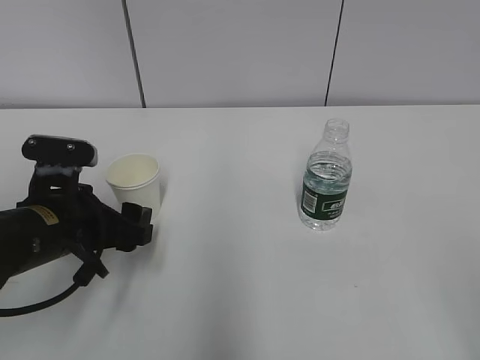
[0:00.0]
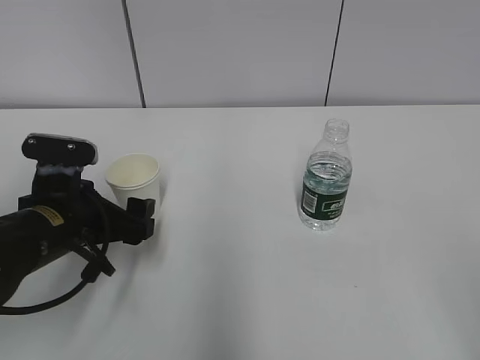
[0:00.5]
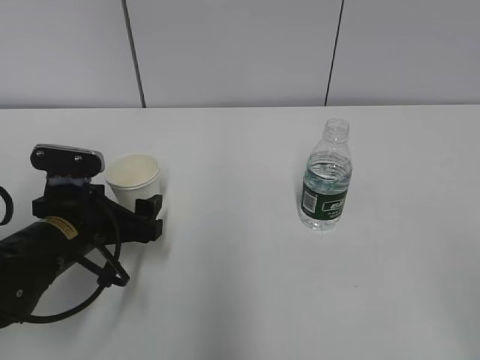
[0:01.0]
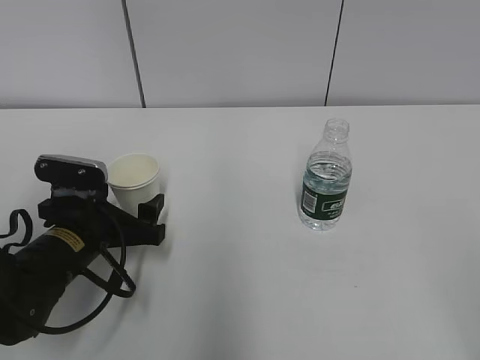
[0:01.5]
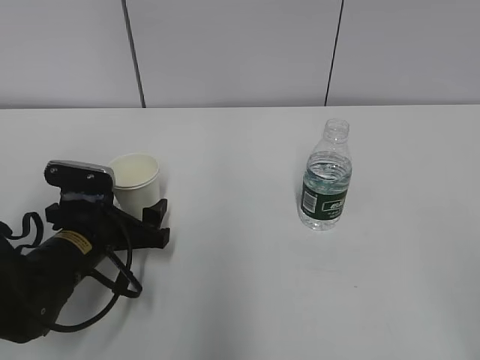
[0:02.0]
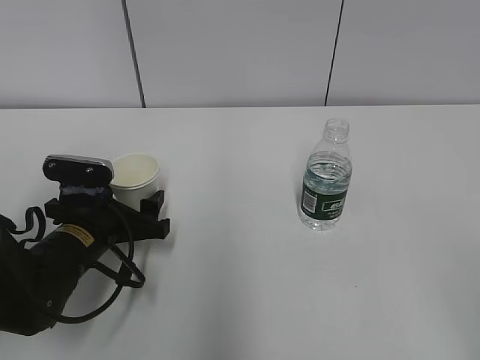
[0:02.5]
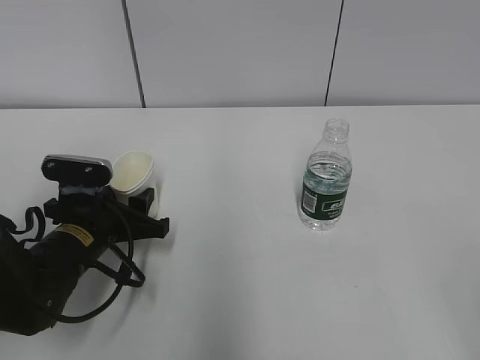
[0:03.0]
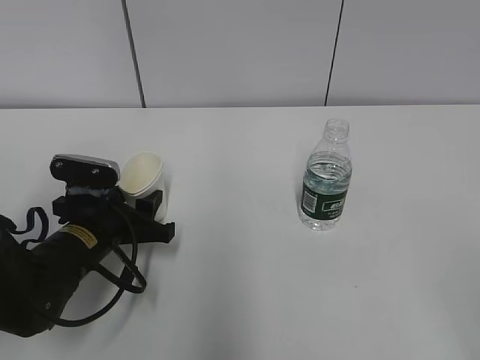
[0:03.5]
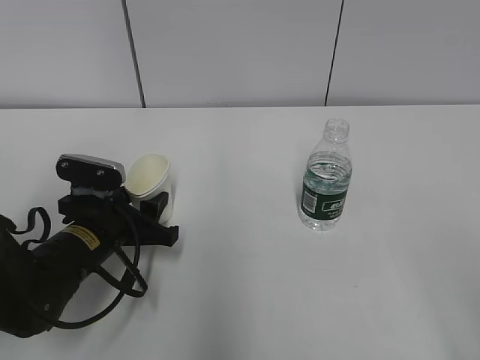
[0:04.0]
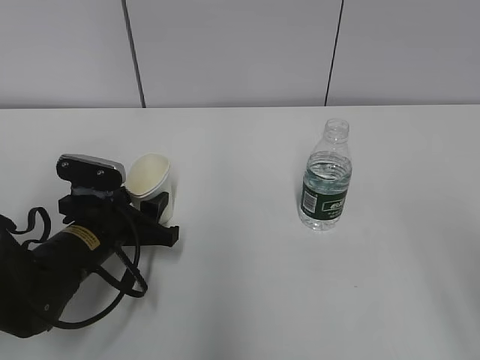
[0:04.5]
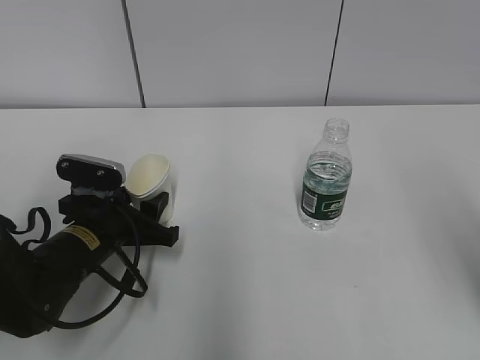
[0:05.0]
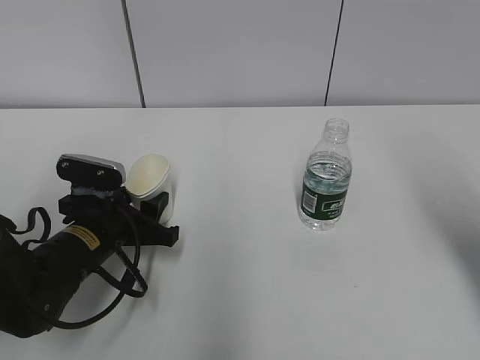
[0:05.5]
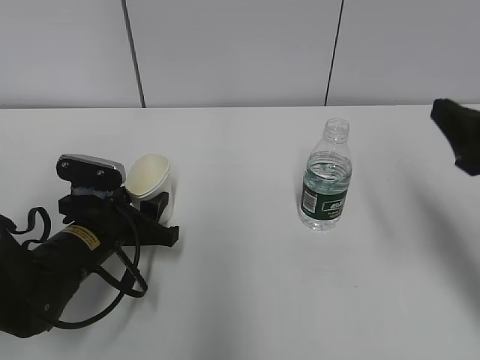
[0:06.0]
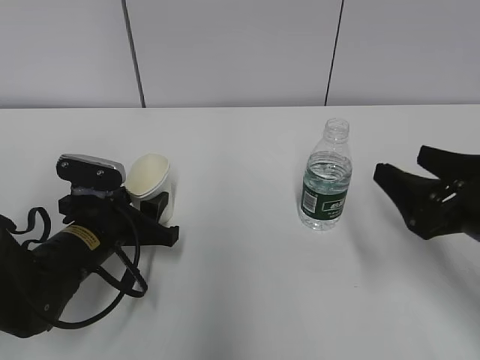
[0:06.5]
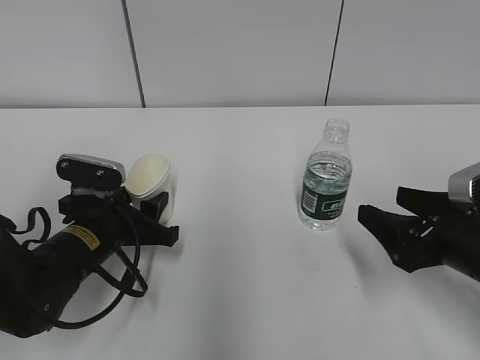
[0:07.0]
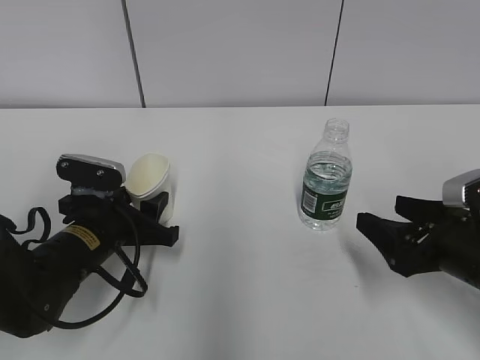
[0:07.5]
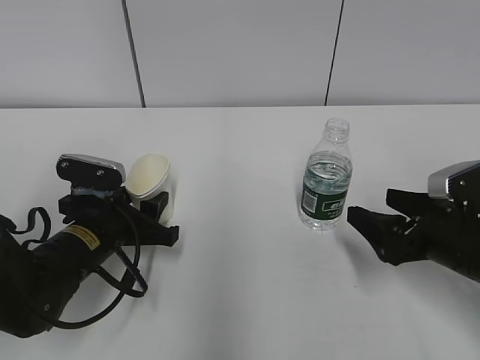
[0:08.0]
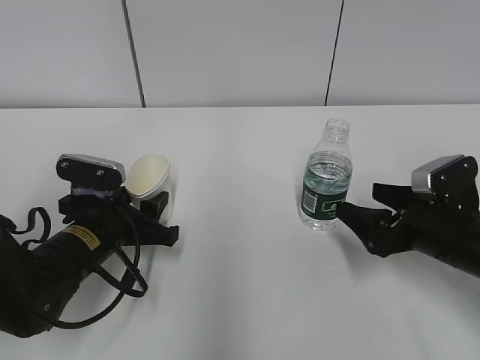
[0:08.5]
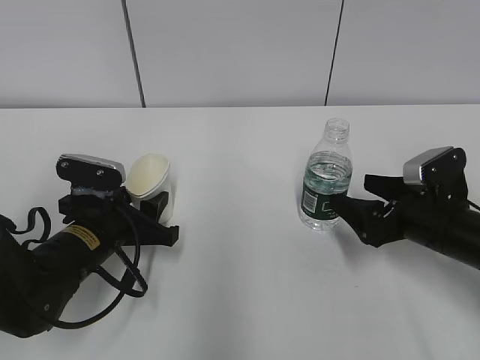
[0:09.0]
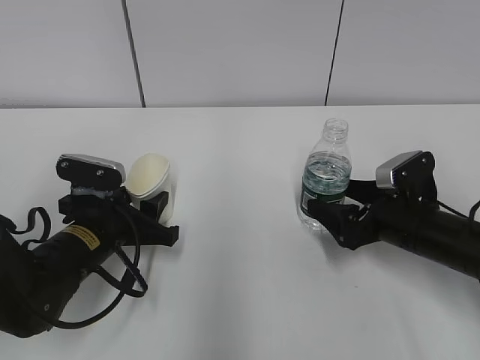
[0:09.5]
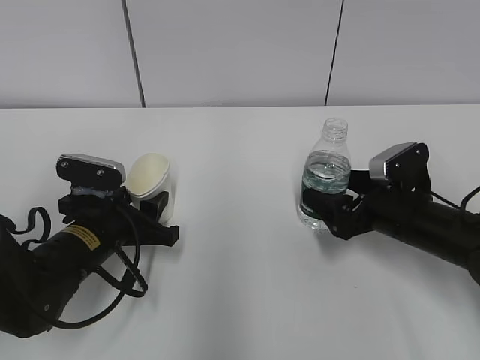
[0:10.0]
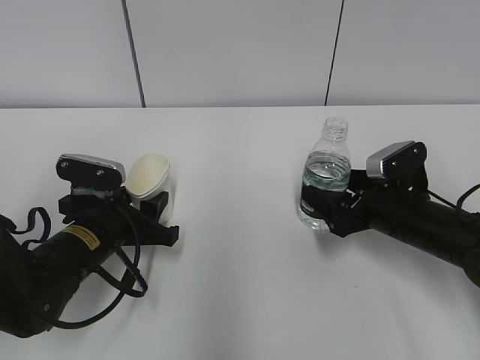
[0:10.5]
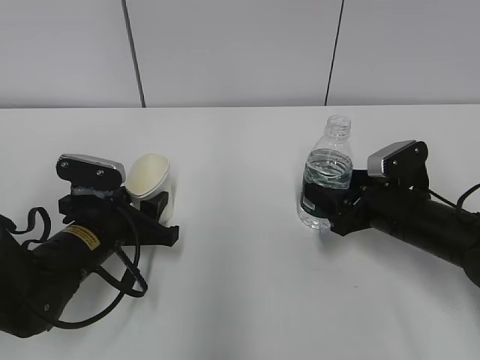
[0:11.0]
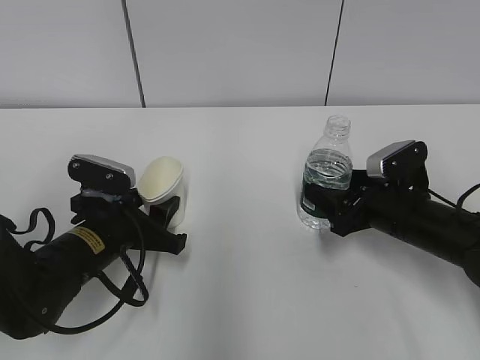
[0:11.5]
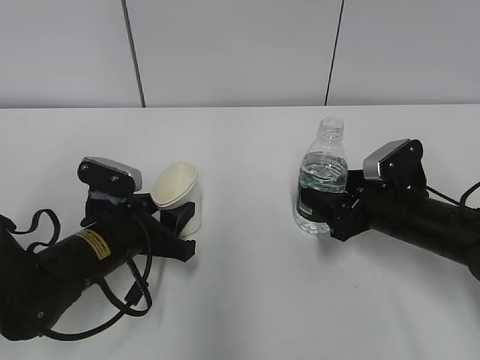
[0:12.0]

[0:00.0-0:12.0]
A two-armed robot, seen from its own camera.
Step, 0:02.0 to 0:08.0: Grab the water bottle with the right hand.
0:00.0 to 0:02.0: The left gripper travels downward by roughly 5 cm.
0:02.0 to 0:04.0: The left gripper closes its fingers.
0:04.0 to 0:06.0: The right gripper moves forward, some 25 cm.
0:06.0 to 0:08.0: The right gripper travels downward by about 15 cm.
0:08.0 to 0:10.0: The right gripper goes approximately 5 cm forward.
0:10.0 to 0:12.0: The right gripper closes.

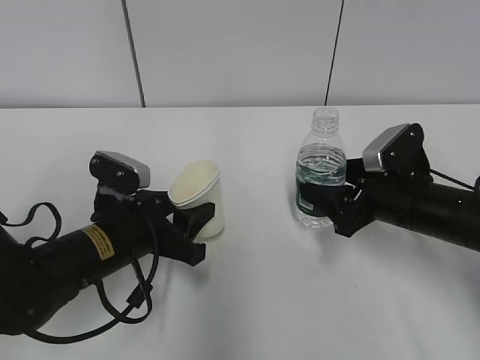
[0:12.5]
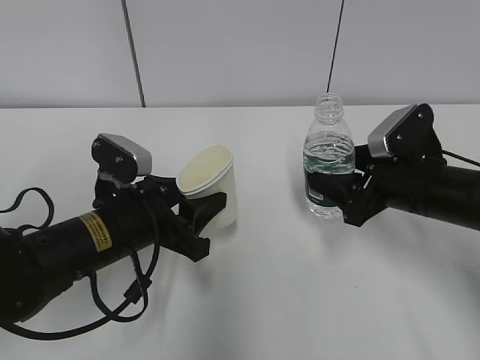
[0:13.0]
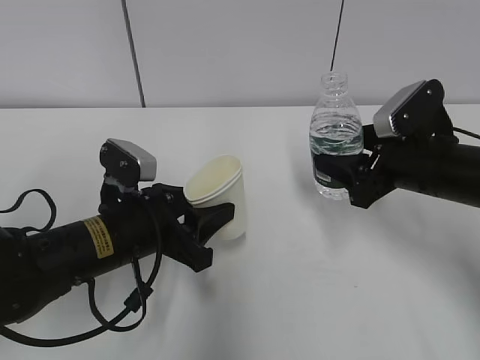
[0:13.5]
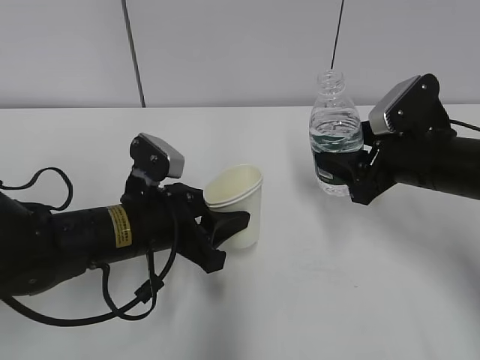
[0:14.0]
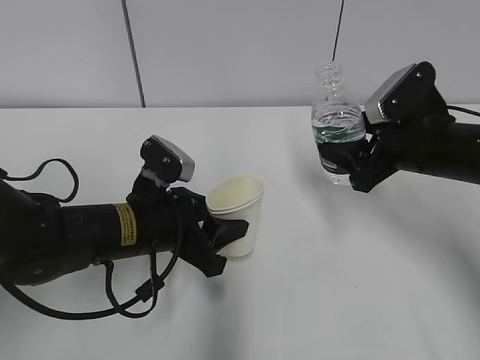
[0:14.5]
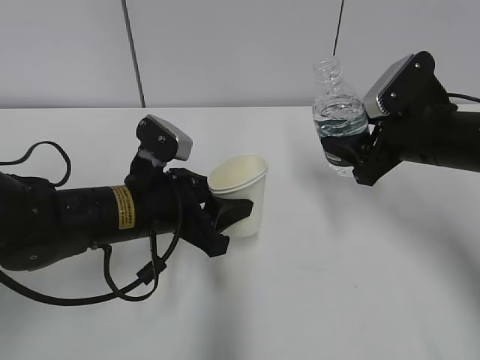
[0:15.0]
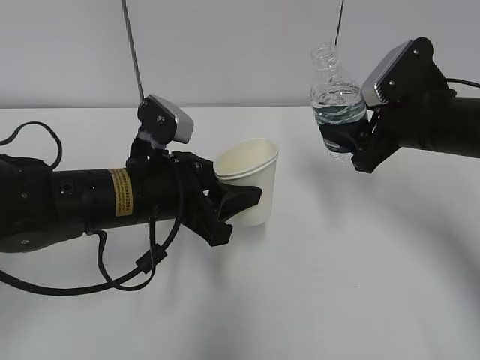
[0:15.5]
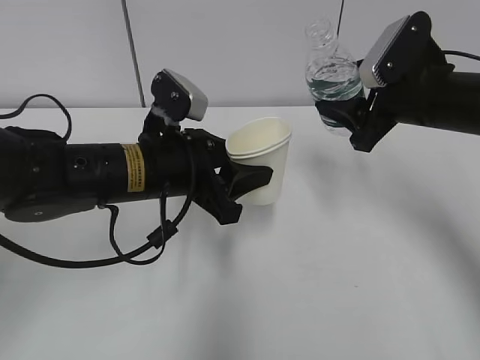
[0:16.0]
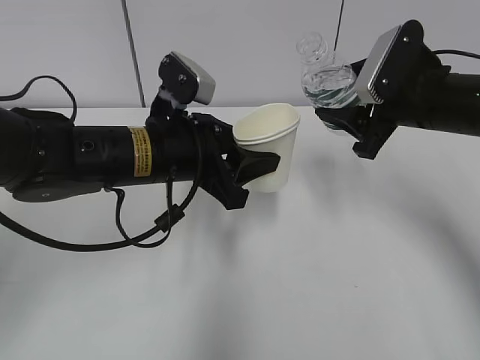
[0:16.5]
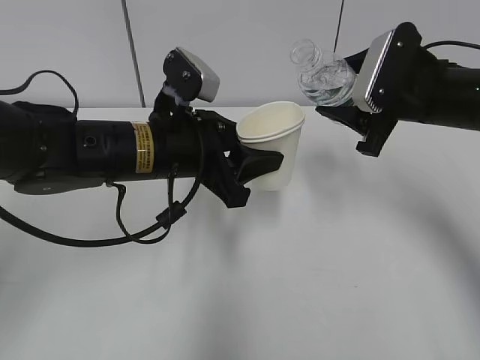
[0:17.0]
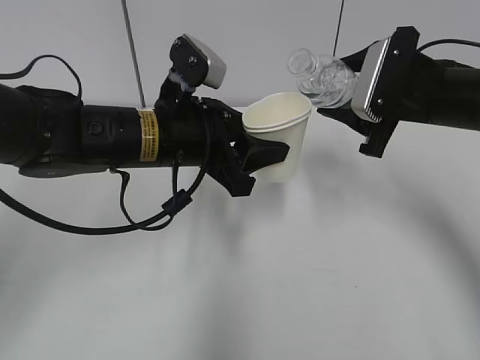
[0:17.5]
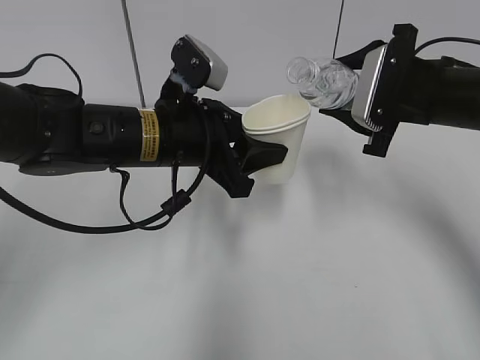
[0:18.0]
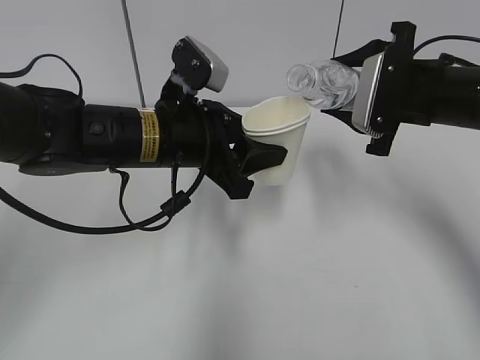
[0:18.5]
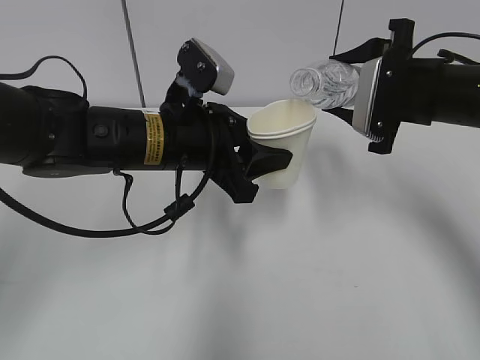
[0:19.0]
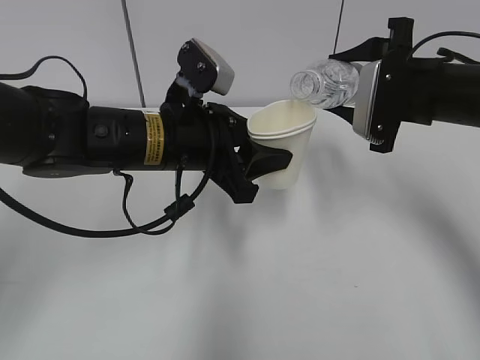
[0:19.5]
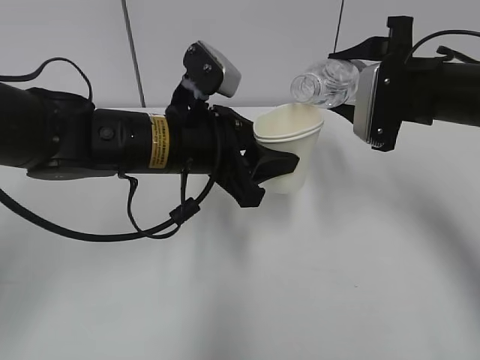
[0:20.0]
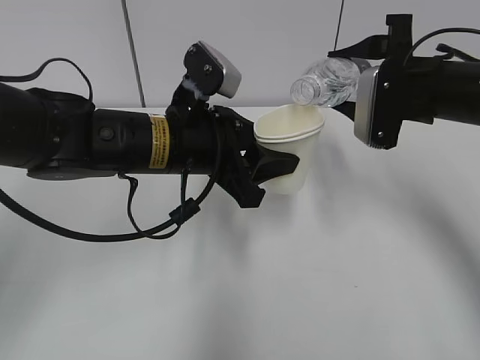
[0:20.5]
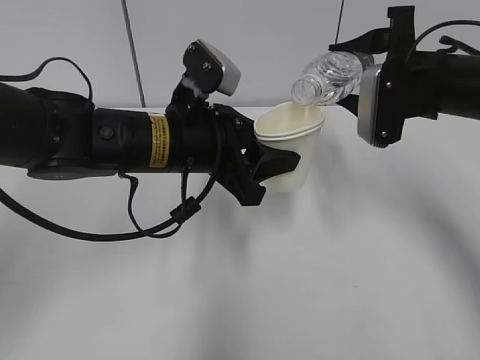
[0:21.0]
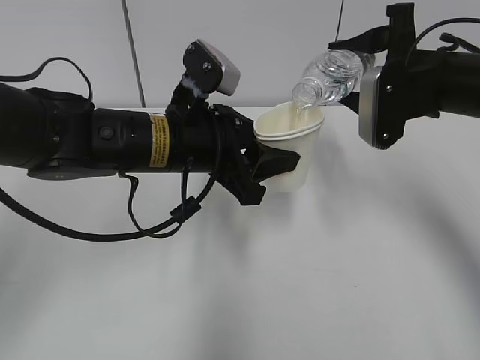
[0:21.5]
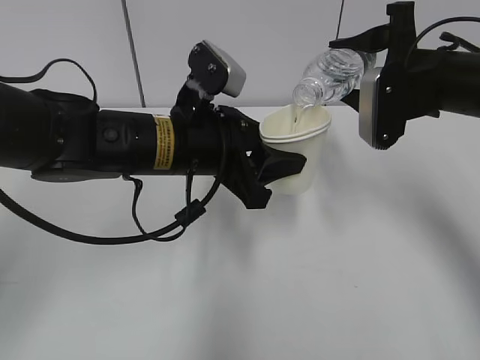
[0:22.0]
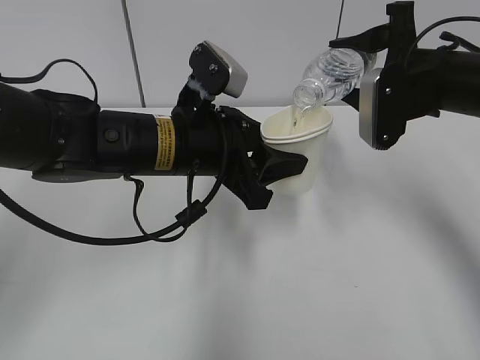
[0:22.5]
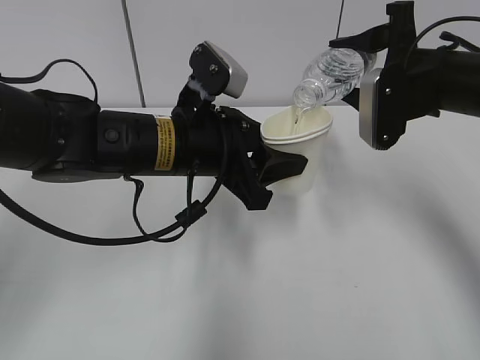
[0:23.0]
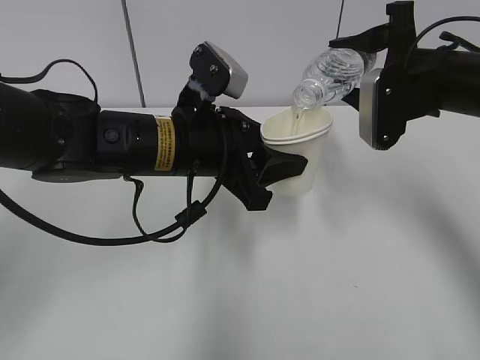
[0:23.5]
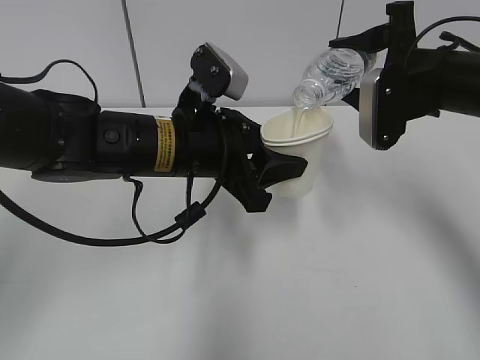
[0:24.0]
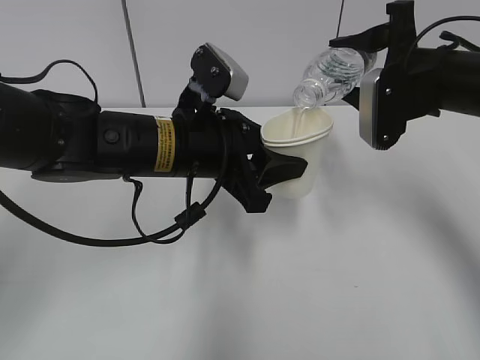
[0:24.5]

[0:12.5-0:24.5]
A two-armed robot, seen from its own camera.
Step, 0:12.5 to 0:16.0: Lift the paper cup with the left hand.
Step, 0:16.5 to 0:20.0: Fill water with the left hand.
Step, 0:16.5 to 0:20.0: Pour water with the right hand.
Step, 0:20.5 to 0:21.5: Collect water with the right hand.
0:12.5 to 0:14.5: The right gripper is displaced upward by roughly 5 cm.
0:14.5 to 0:16.5: The left gripper goes roughly 10 cm upward.
0:18.5 to 0:20.5: The grippers move only a little.
0:20.5 to 0:22.5: The grippers stay close to where they were, moving slightly.
0:22.5 to 0:24.5: The two grippers keep their place.

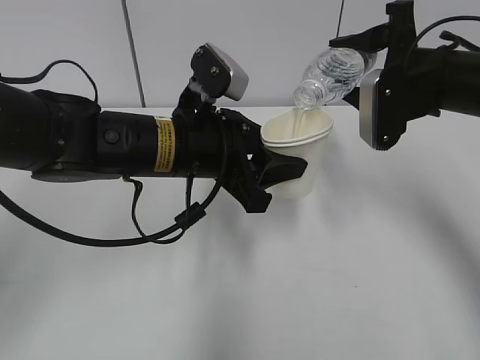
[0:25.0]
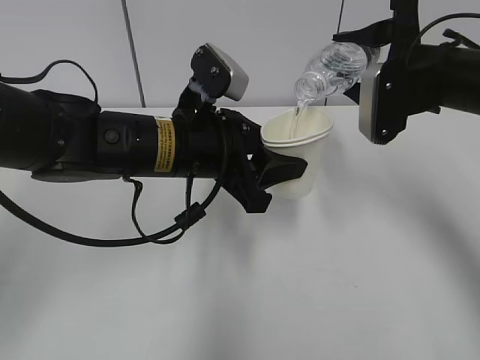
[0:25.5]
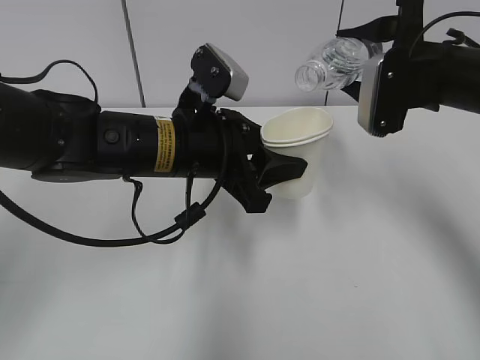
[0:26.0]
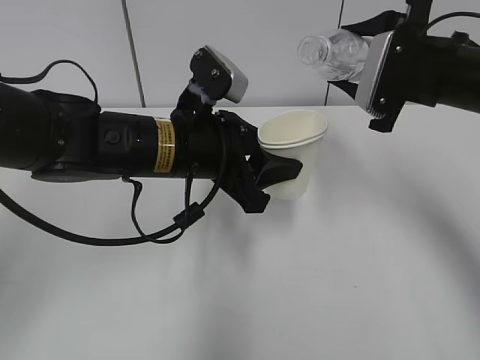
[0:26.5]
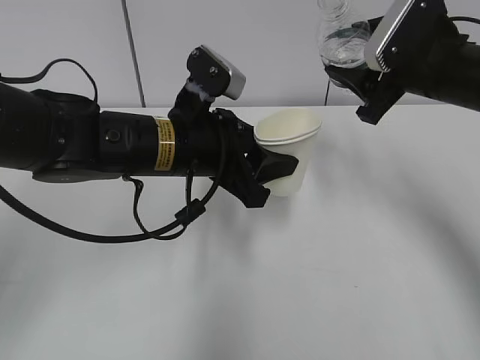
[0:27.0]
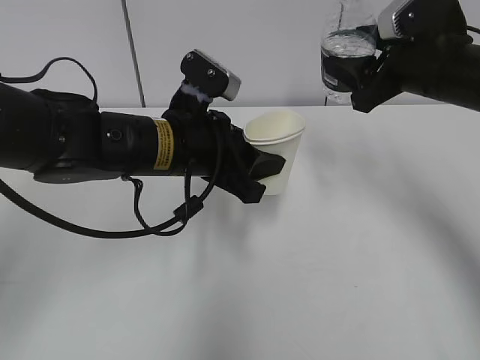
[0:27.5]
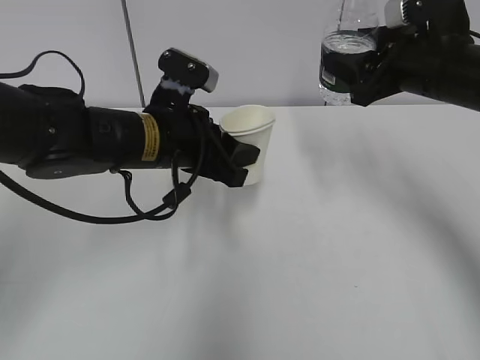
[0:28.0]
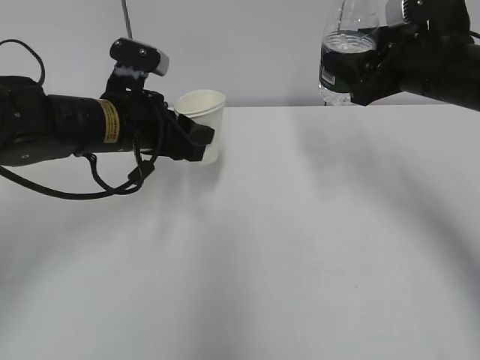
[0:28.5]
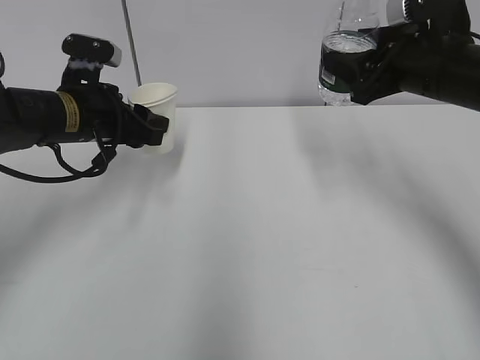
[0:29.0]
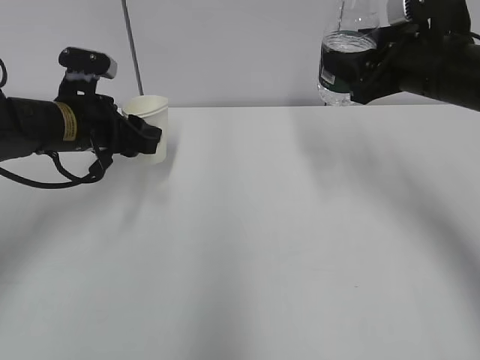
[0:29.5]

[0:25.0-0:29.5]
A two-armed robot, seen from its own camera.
0:27.0 to 0:29.5: The left gripper moves to the left and forward, roughly 15 cm.
